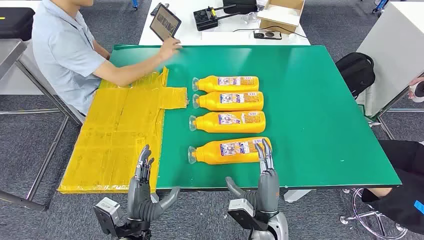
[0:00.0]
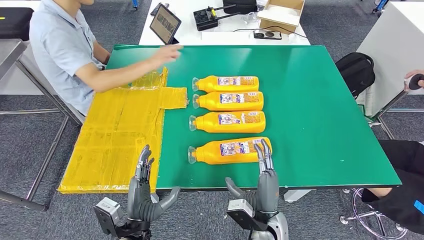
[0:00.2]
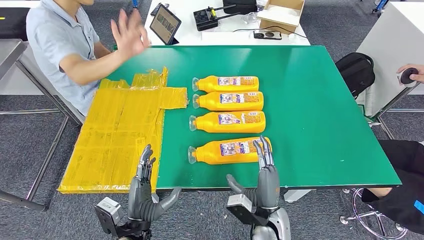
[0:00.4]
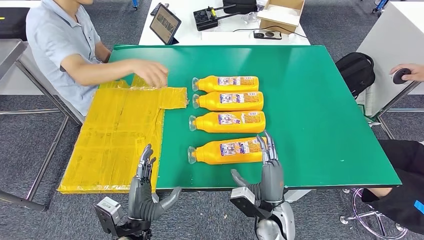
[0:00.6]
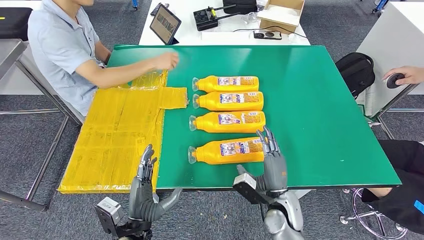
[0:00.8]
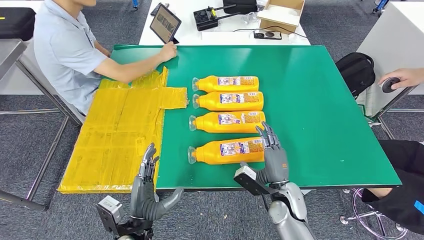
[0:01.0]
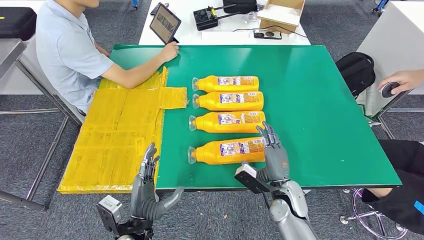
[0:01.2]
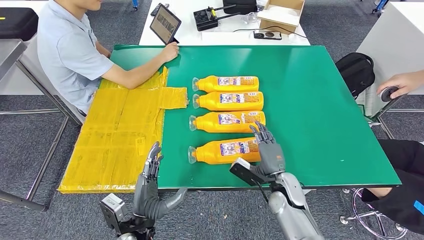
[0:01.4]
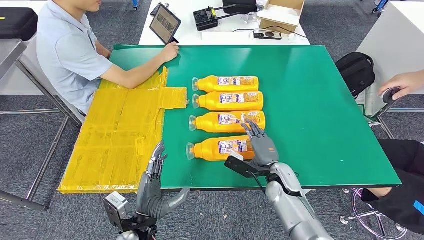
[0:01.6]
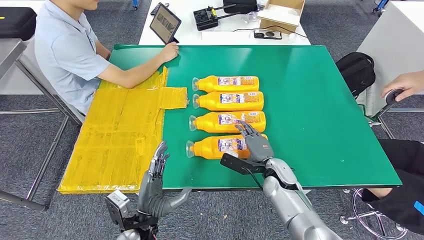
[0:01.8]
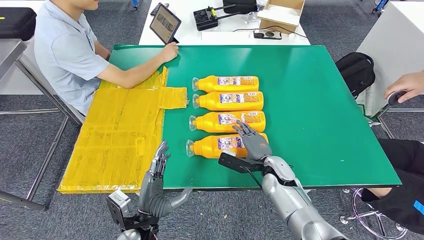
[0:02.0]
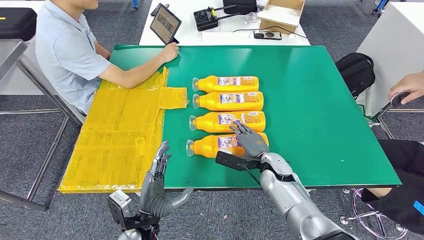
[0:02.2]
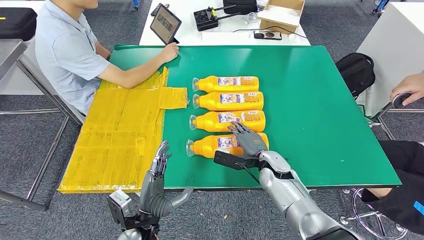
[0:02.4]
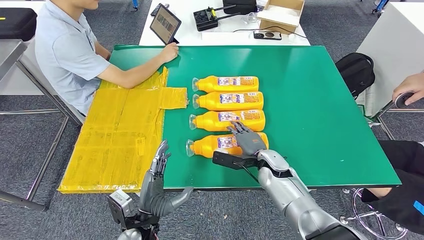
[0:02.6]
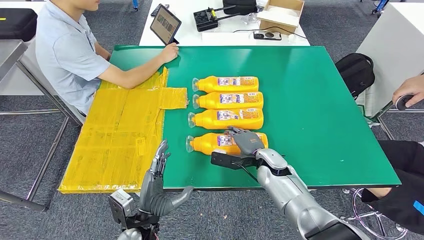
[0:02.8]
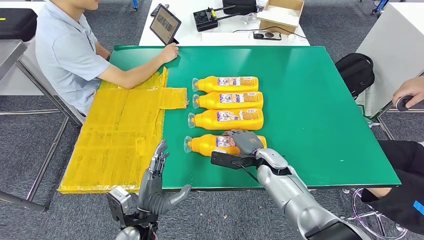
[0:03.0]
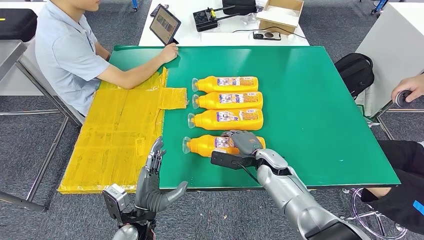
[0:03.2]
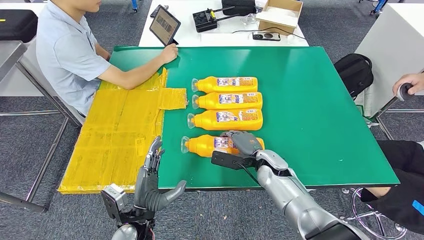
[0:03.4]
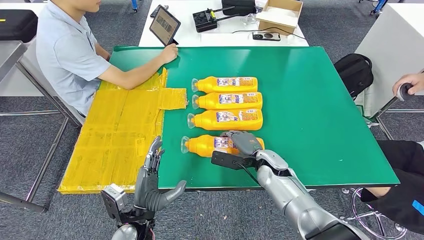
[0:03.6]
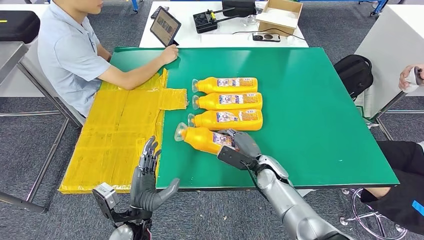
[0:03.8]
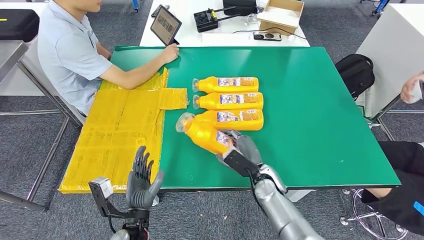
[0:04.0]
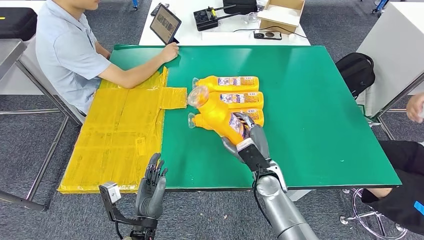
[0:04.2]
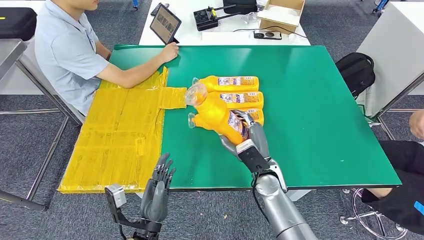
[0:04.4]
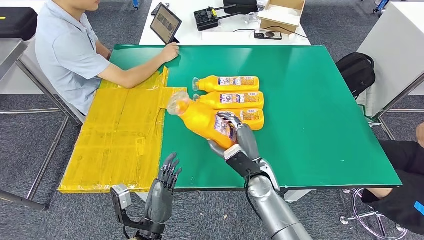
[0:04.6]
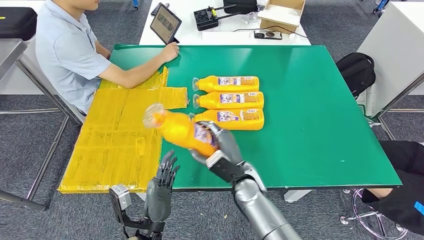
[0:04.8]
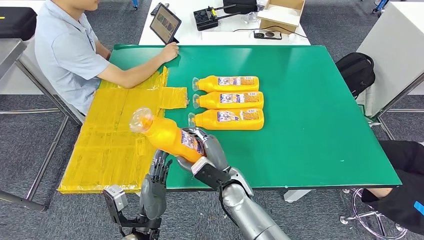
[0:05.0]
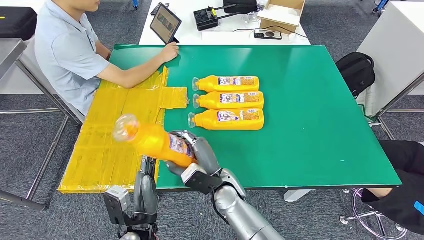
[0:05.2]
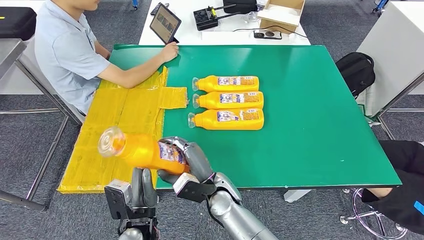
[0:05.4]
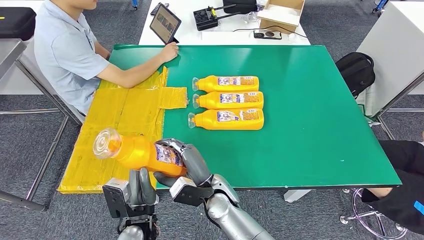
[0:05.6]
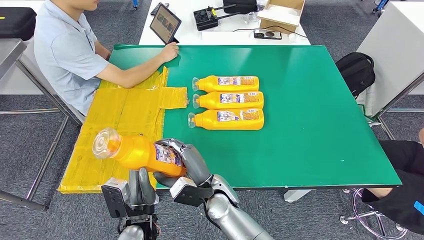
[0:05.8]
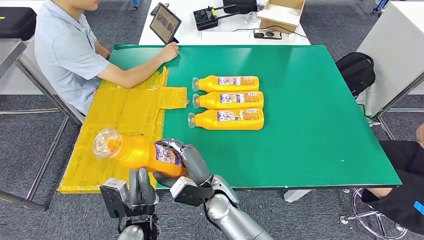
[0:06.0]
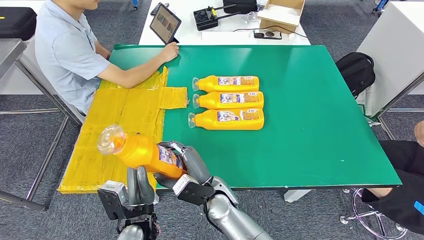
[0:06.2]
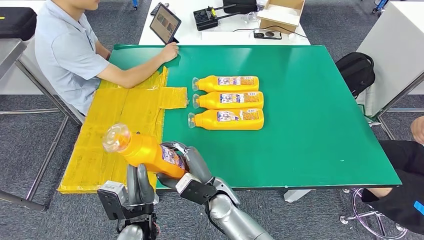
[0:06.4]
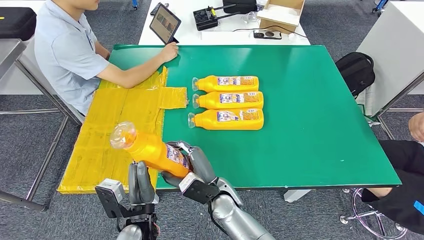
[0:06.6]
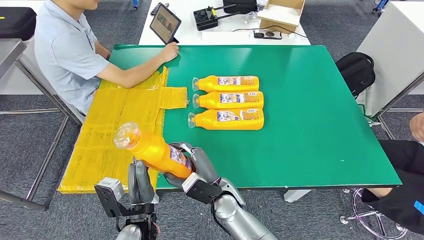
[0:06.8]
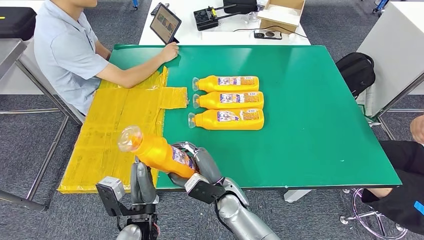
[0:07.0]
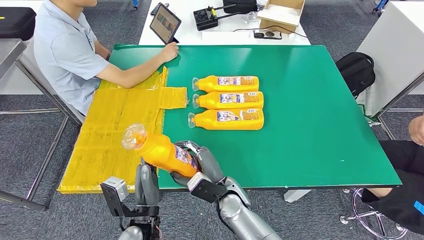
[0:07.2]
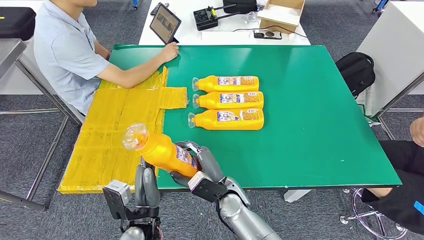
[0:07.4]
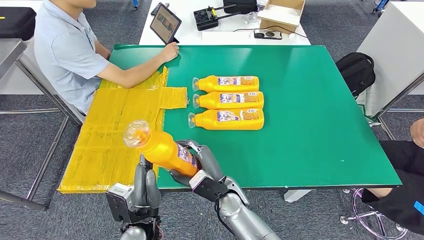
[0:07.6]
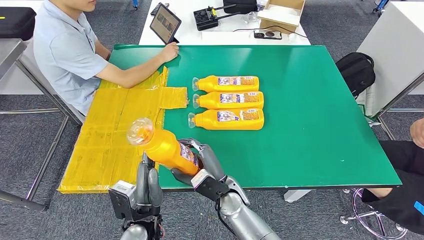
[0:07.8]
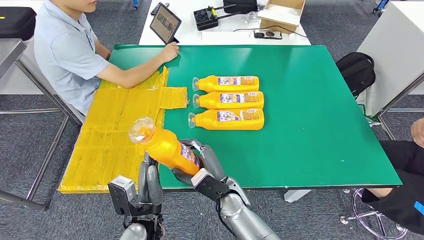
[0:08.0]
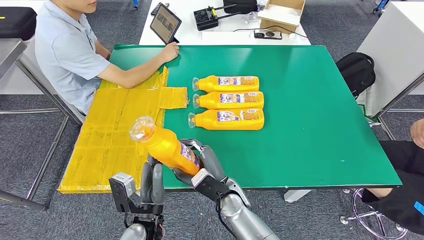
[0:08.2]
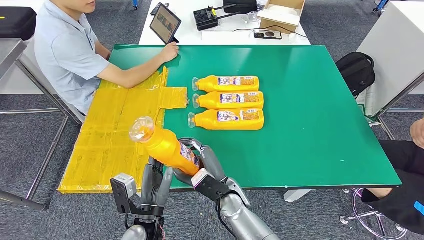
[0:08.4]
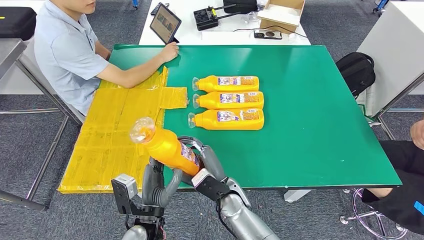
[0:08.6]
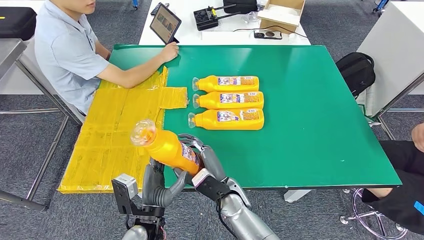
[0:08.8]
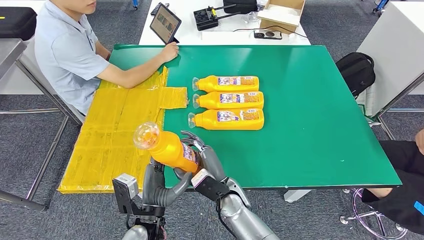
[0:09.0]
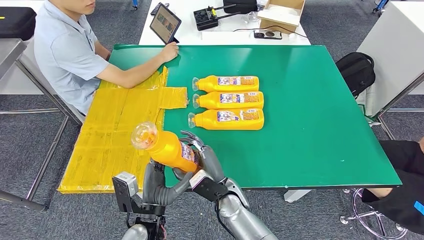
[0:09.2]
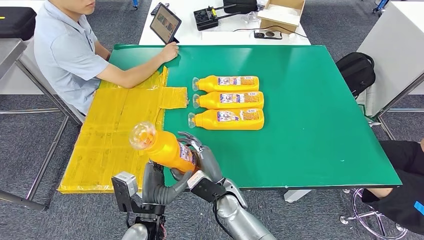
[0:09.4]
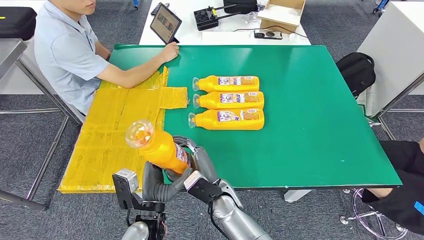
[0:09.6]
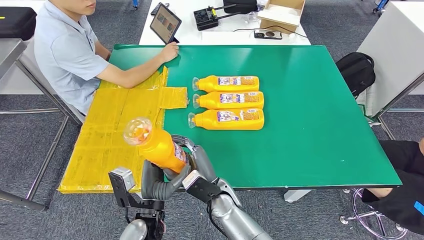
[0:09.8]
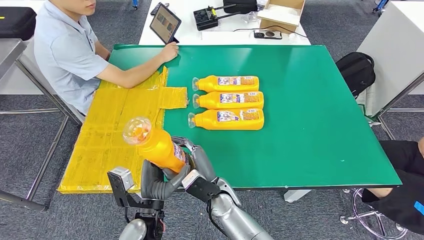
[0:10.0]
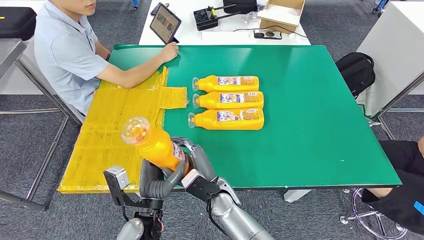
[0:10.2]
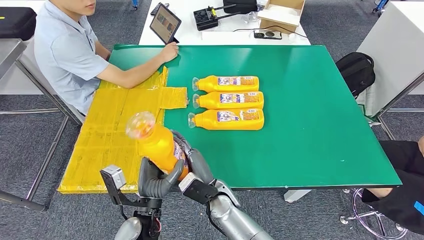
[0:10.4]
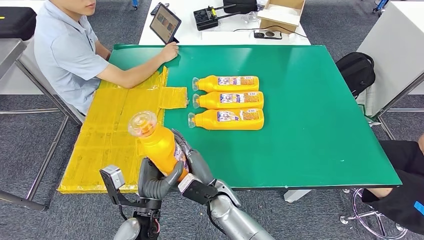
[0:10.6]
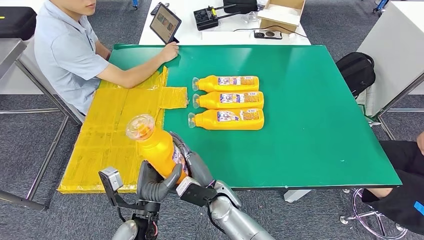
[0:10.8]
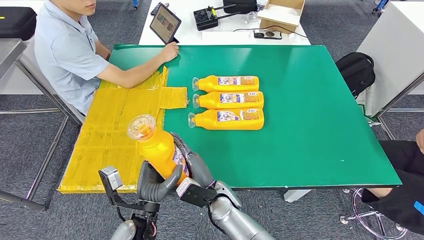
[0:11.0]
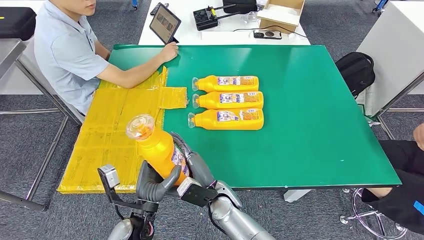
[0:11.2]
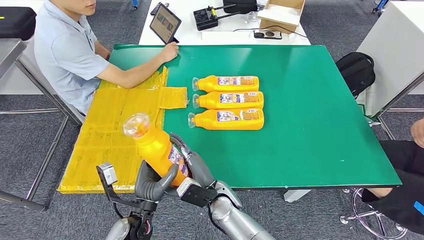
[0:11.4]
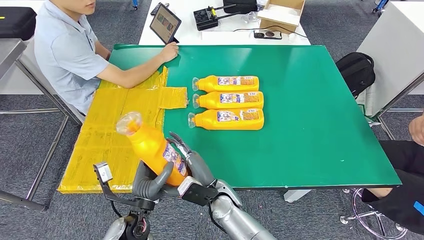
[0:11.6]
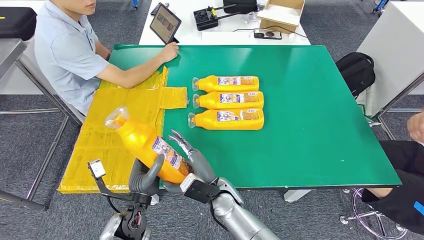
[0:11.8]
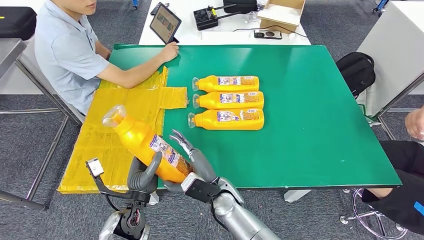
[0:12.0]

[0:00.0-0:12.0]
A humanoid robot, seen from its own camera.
Step, 0.0 to 5.0 s: Take the fast-moving consumer goods bottle from the table.
1.6 to 3.0 s: The right hand shifts by approximately 5 cm.
3.0 to 4.4 s: The right hand changes place by approximately 5 cm.
4.4 to 6.0 s: The right hand is displaced to the left by about 15 cm.
6.0 to 9.0 s: There are only small adjustments of the hands.
9.0 to 10.4 s: The hands move only a little.

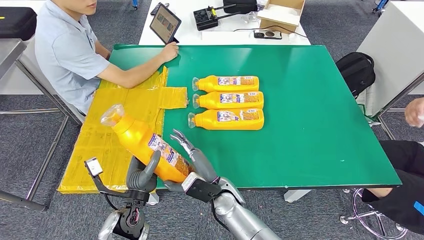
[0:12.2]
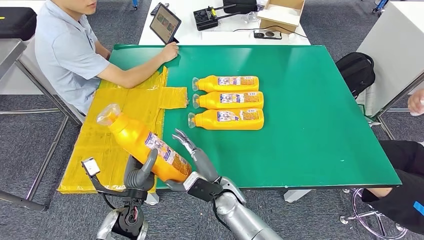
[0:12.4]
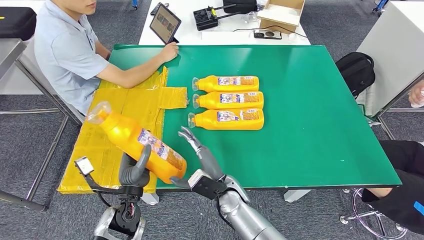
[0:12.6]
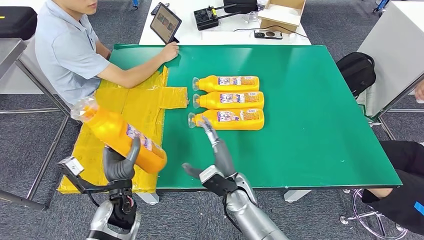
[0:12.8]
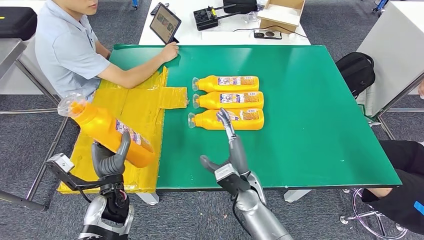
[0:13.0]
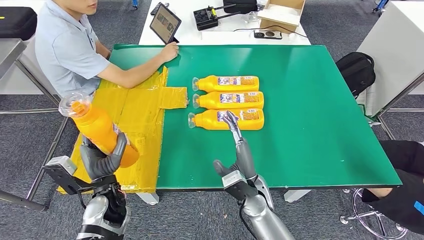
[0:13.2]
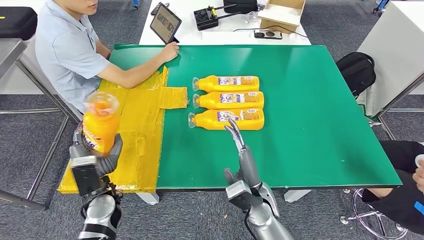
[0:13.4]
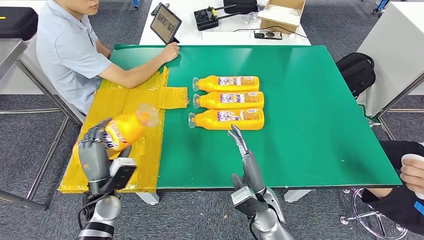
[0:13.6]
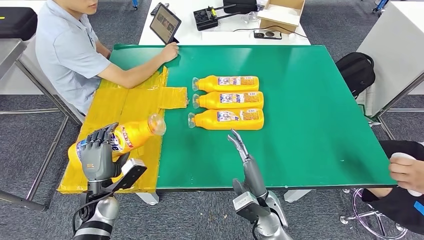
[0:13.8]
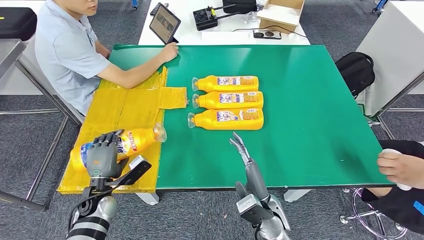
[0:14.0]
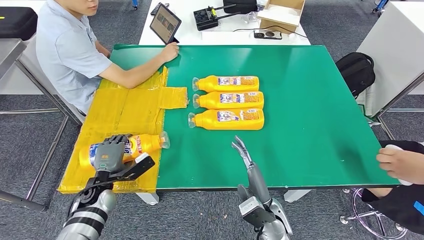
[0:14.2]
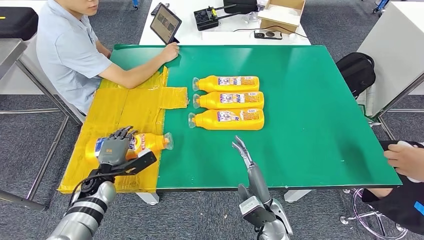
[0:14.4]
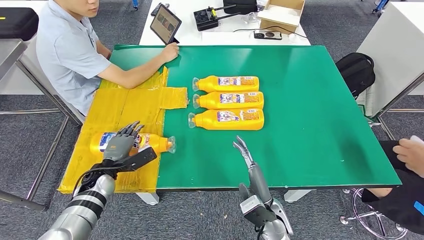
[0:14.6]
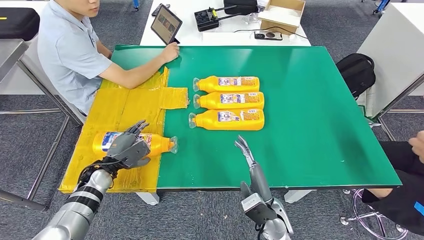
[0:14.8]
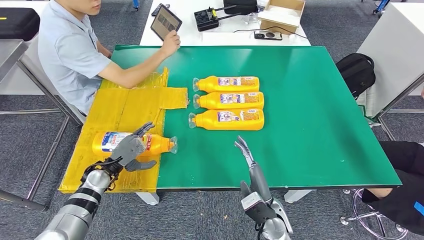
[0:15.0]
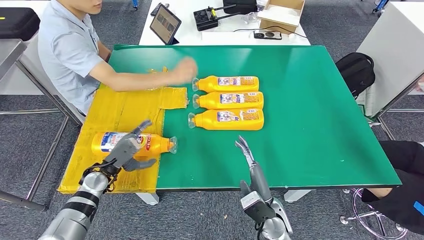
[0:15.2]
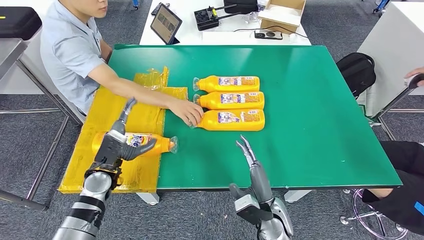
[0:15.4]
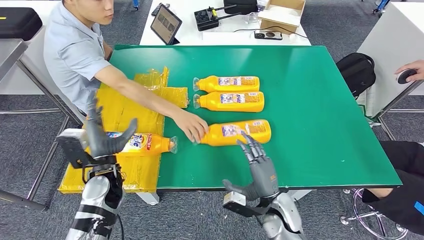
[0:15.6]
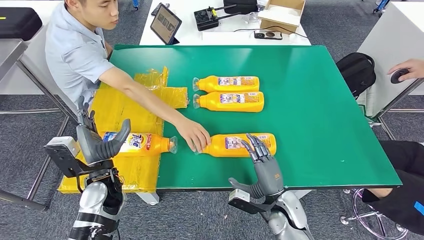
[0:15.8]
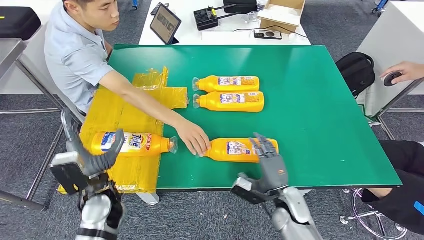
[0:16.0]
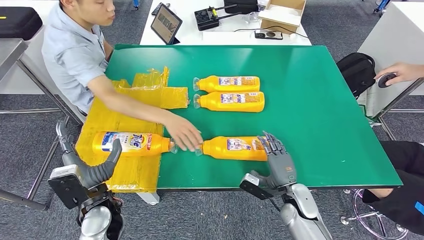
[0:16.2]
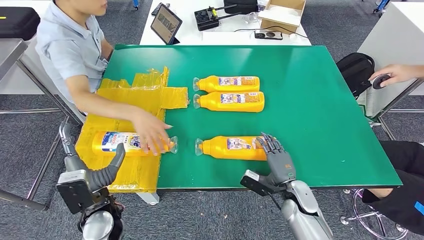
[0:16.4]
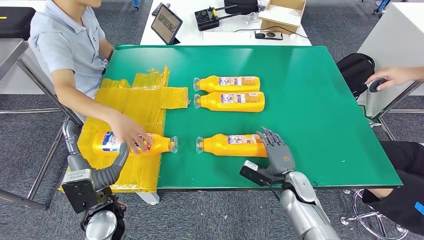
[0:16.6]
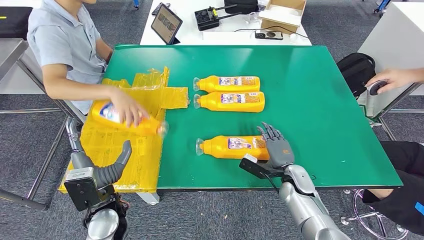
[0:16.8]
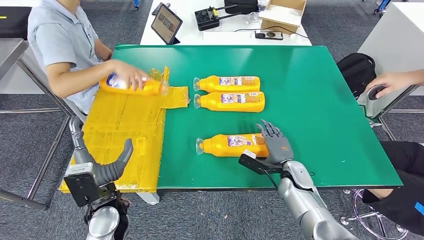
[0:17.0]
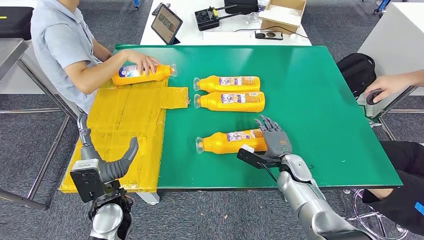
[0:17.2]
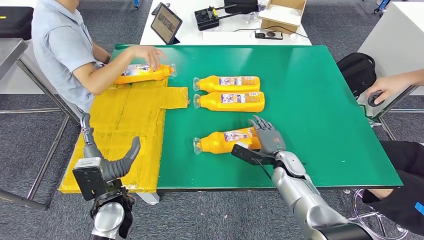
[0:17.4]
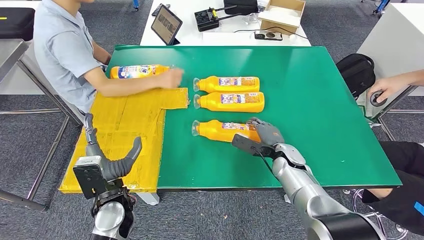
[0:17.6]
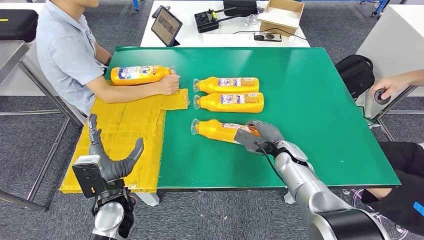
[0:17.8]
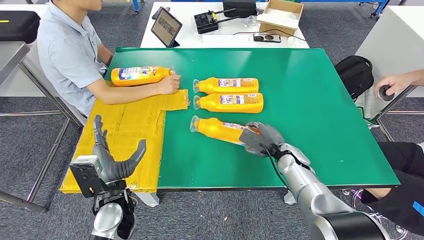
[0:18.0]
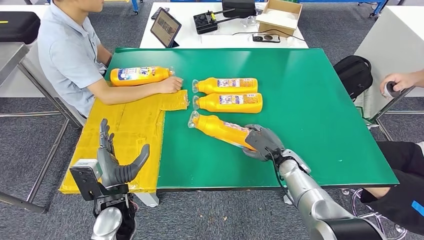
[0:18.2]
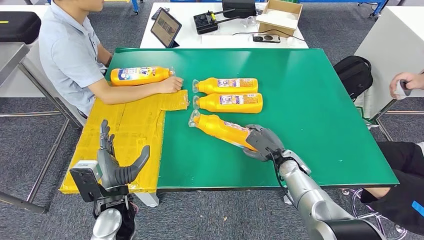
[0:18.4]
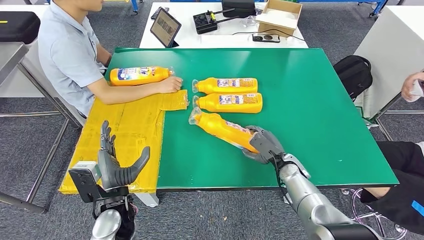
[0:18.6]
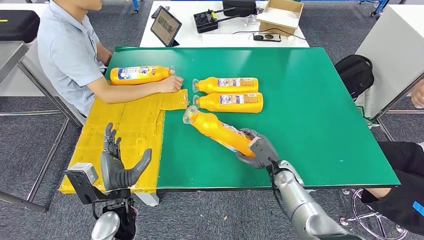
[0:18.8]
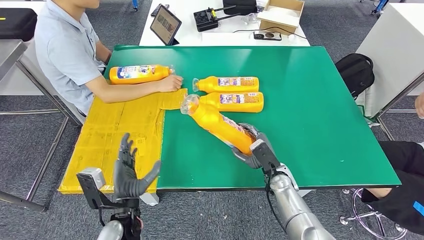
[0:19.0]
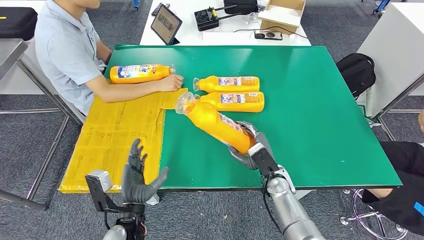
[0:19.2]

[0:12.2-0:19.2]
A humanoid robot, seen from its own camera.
12.2 to 13.6 s: The left hand travels to the left by approximately 10 cm. Meanwhile the right hand shifts about 10 cm to the right.
13.6 to 15.0 s: The left hand goes some 5 cm forward.
